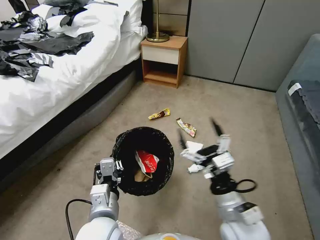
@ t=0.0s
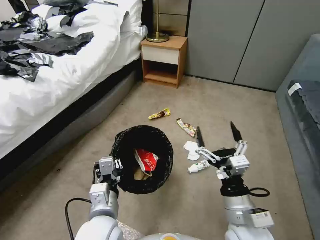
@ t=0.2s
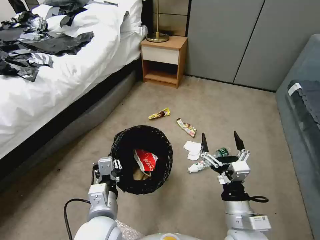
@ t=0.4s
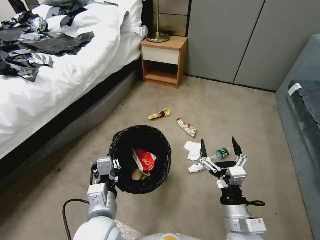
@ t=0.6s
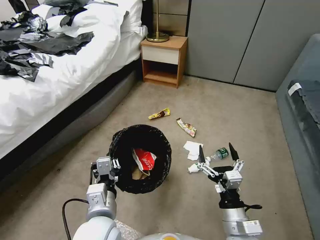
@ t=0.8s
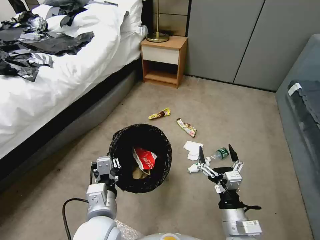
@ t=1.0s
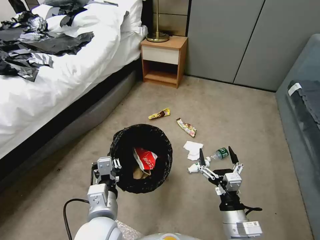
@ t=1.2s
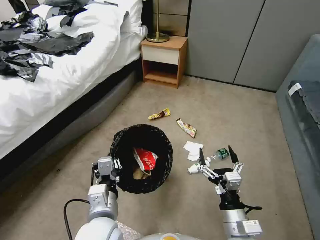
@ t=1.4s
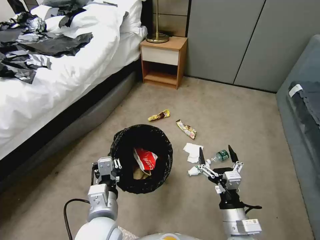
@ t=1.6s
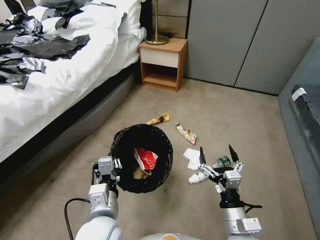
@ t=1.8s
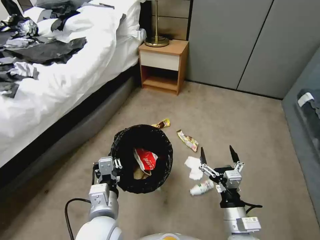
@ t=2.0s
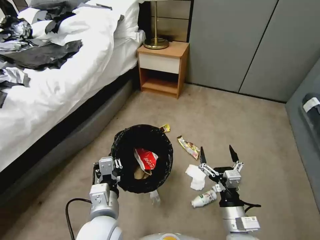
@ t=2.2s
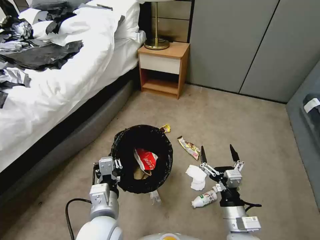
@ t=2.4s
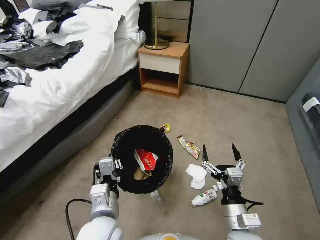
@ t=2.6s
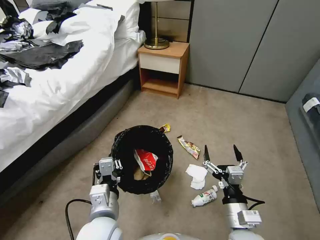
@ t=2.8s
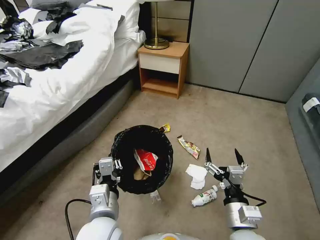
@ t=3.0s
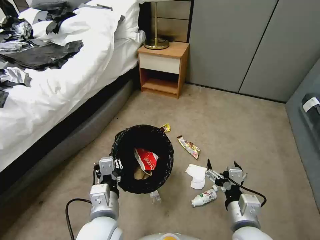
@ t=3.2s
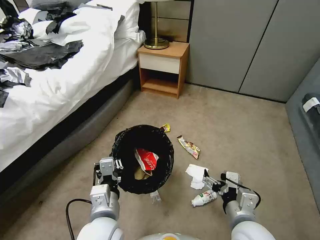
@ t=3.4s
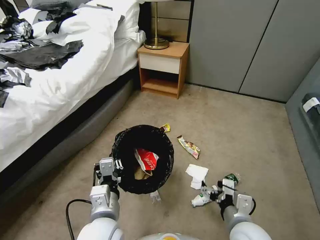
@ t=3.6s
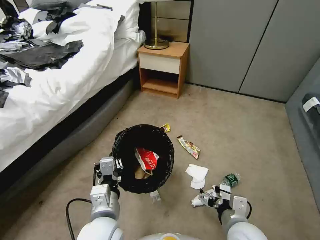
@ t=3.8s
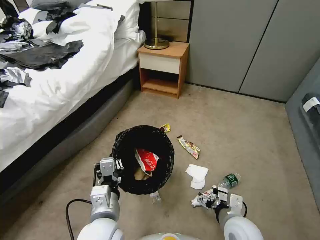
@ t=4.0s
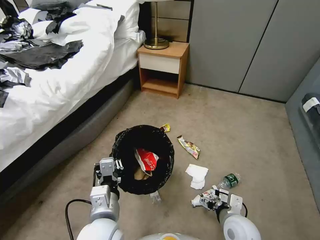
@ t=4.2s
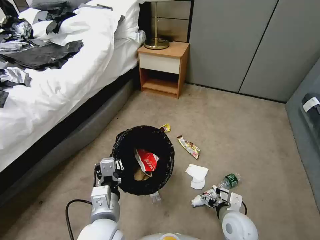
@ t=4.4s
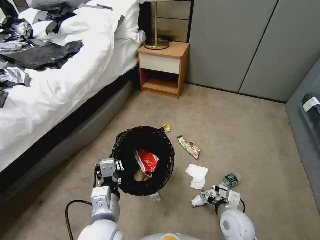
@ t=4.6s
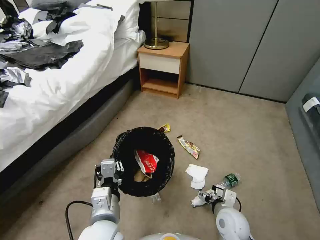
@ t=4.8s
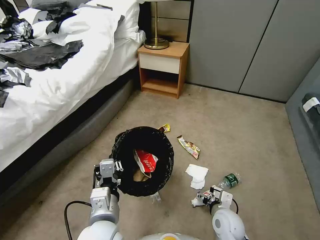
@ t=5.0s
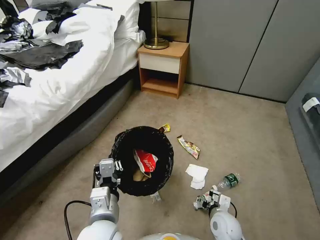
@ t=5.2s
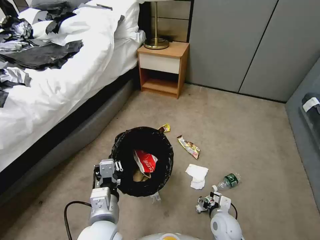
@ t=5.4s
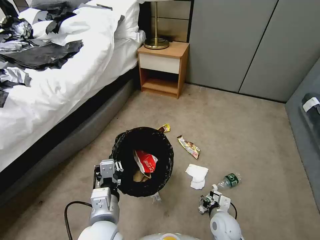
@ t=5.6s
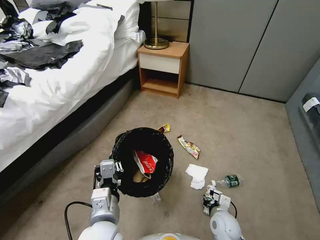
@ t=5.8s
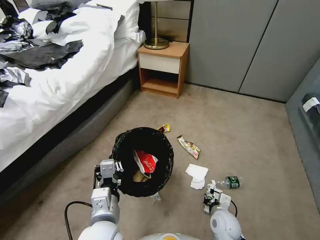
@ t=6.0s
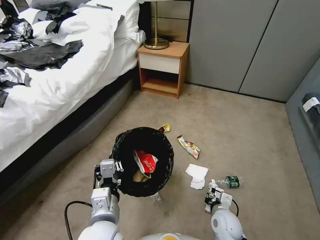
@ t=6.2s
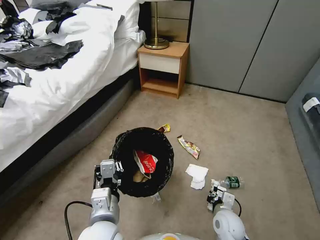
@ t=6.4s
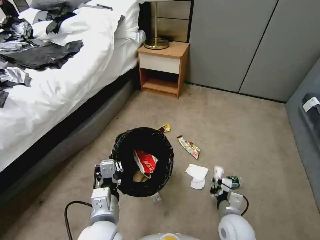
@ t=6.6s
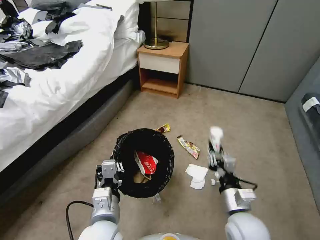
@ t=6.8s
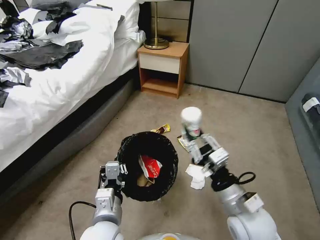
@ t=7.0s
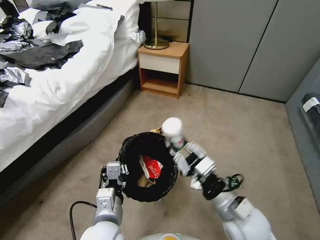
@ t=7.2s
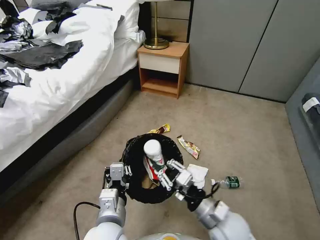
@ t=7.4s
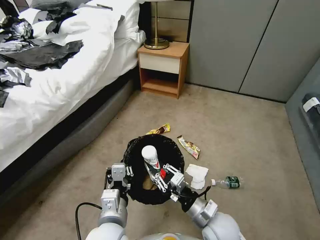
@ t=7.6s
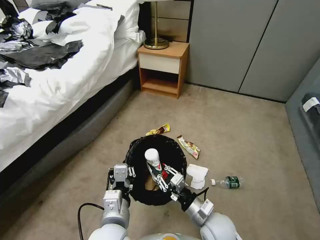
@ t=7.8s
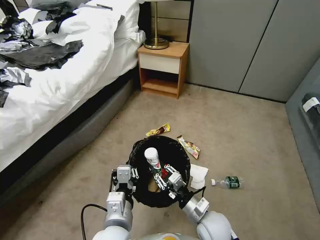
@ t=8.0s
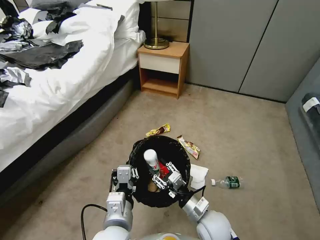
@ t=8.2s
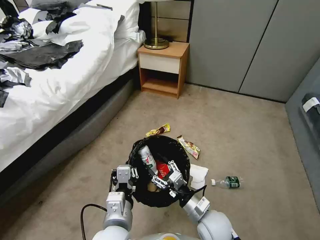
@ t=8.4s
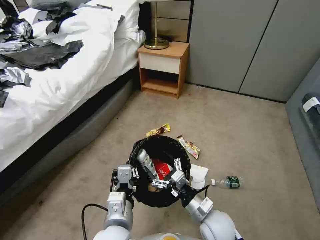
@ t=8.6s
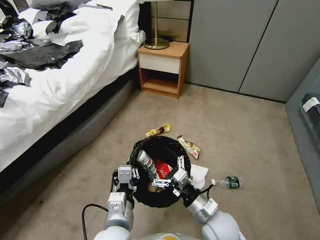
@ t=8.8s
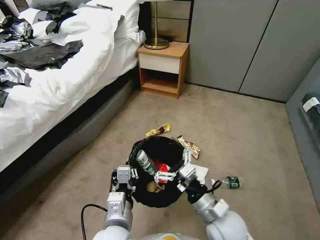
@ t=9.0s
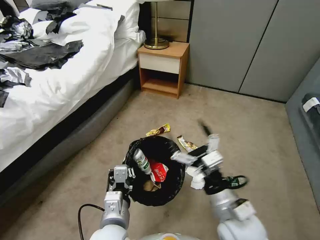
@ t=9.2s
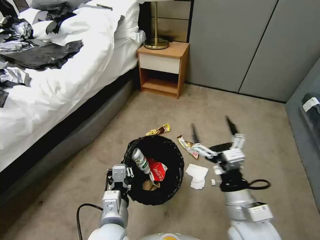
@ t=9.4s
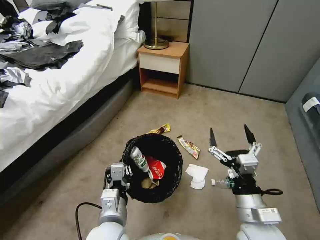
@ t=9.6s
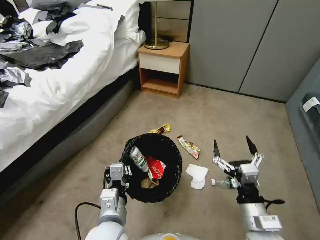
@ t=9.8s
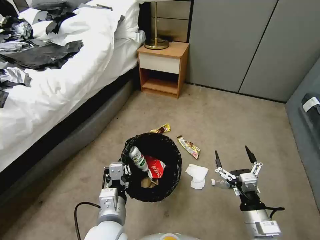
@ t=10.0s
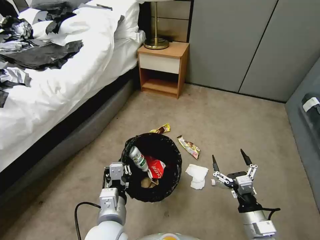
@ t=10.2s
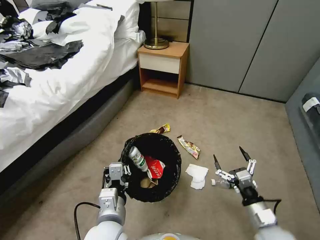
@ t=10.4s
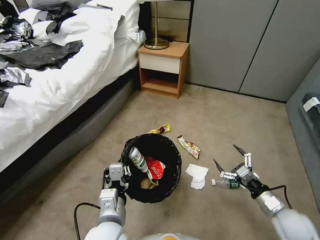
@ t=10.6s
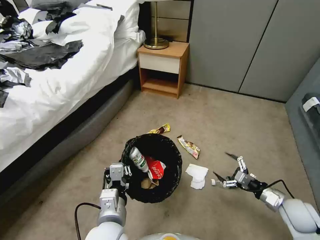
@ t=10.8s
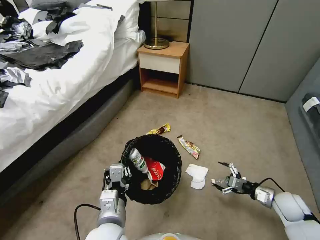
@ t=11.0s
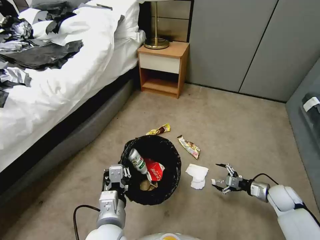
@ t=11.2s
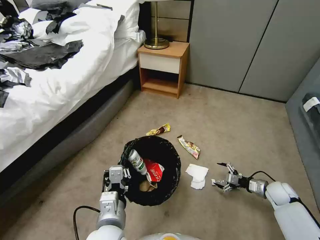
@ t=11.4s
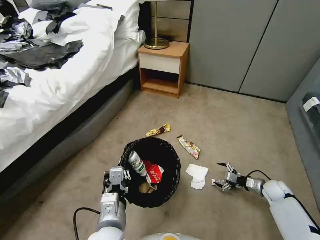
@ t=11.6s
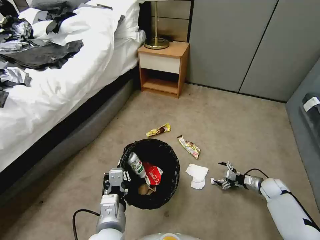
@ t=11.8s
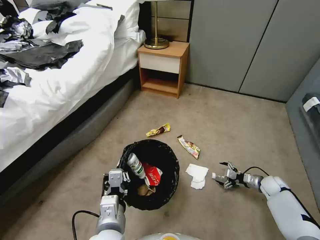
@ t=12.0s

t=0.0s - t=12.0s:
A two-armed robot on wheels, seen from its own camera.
Task of the whole recording: Pick up the trash bin, then pick up the garbage from the floor and place it into the trash bin.
t=0.0s - t=1.6s: The right gripper moves downward, roughly 5 cm.
t=3.0s - t=4.4s: The right gripper shifts some 10 cm downward and forward.
t=4.4s - t=6.0s: The right gripper travels downward by roughly 10 cm, and closes its fingers.
t=6.0s - t=7.6s: The right gripper is displaced upward and to the left by about 15 cm.
t=7.6s - t=9.0s: The right gripper opens.
t=9.0s - t=10.4s: The right gripper shifts roughly 15 cm to the right and downward.
t=10.4s - t=12.0s: The right gripper is displaced forward, to the right and downward by approximately 30 cm.

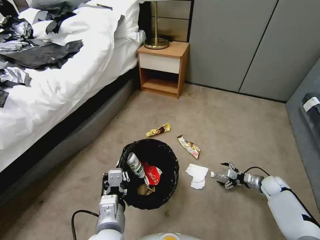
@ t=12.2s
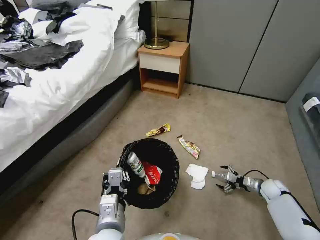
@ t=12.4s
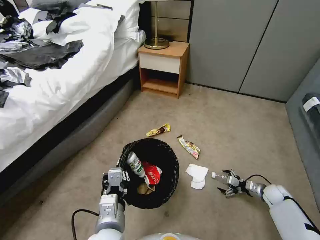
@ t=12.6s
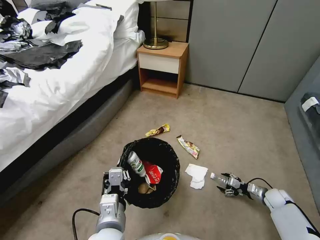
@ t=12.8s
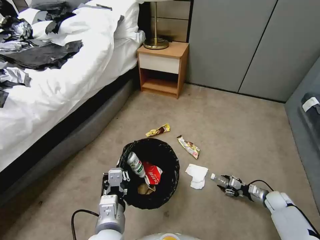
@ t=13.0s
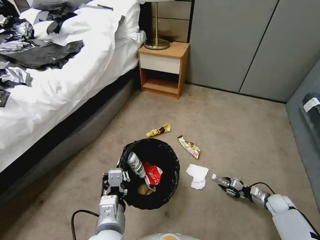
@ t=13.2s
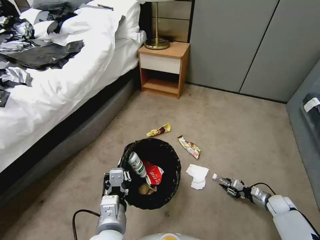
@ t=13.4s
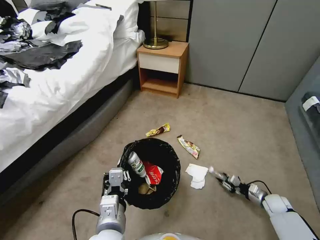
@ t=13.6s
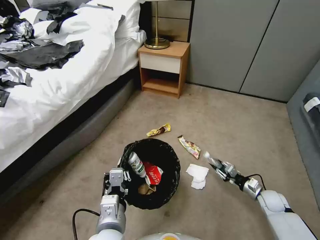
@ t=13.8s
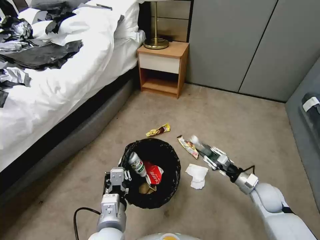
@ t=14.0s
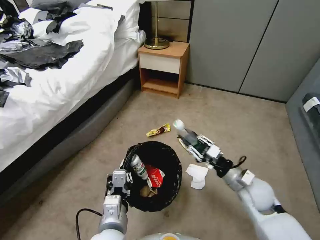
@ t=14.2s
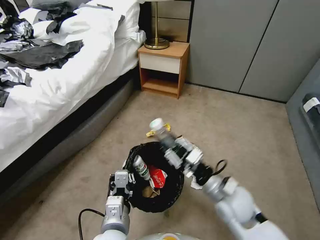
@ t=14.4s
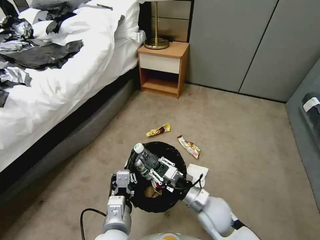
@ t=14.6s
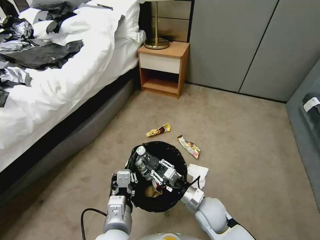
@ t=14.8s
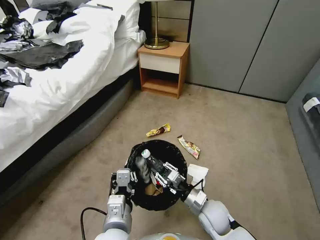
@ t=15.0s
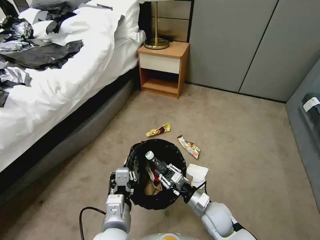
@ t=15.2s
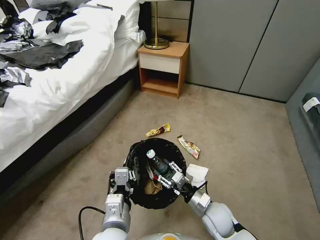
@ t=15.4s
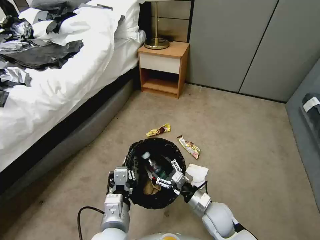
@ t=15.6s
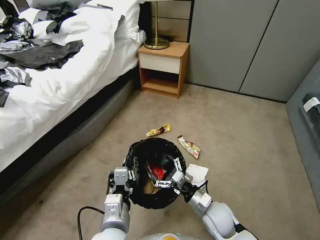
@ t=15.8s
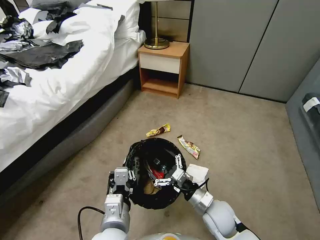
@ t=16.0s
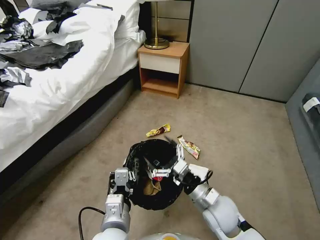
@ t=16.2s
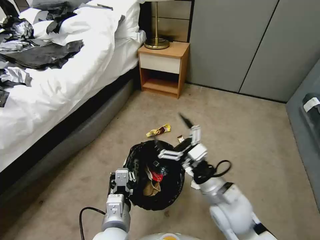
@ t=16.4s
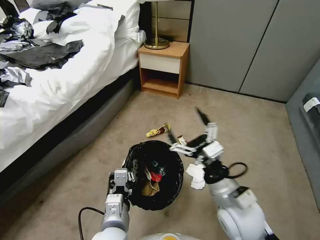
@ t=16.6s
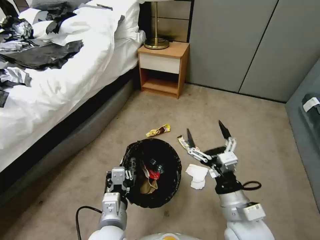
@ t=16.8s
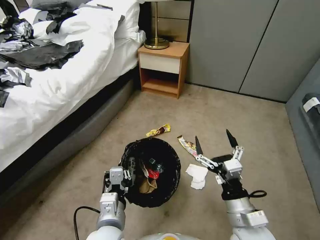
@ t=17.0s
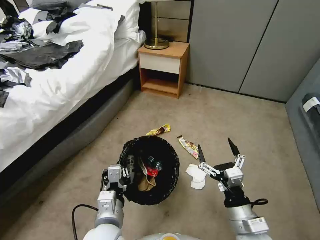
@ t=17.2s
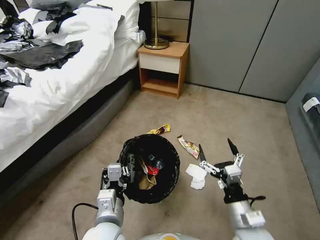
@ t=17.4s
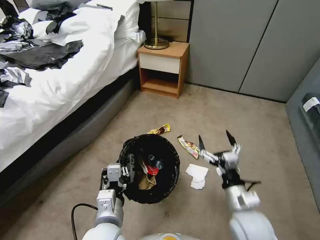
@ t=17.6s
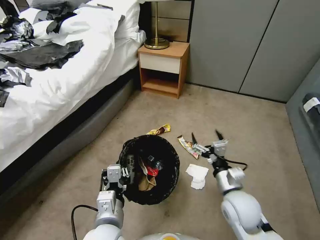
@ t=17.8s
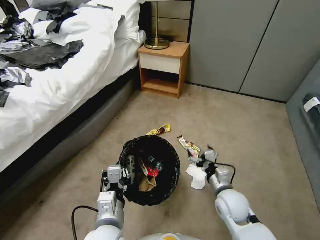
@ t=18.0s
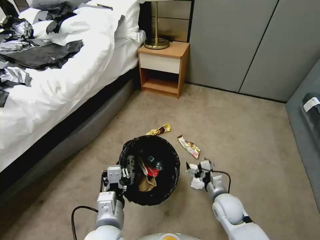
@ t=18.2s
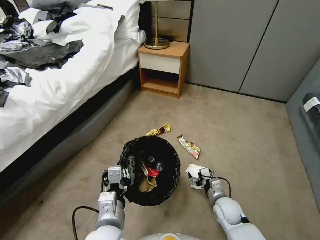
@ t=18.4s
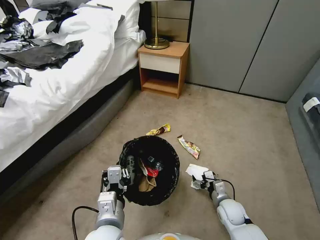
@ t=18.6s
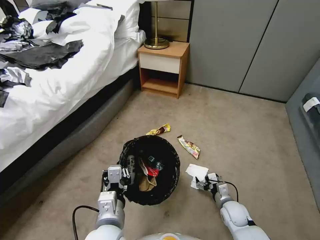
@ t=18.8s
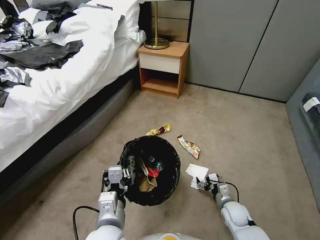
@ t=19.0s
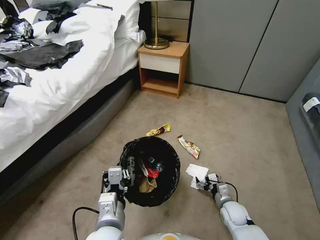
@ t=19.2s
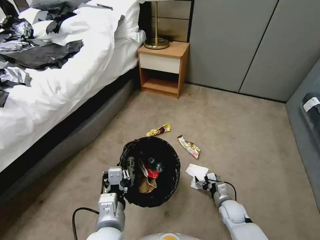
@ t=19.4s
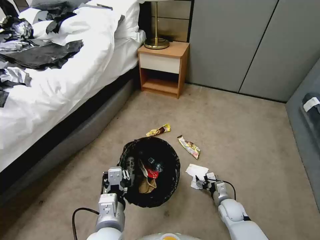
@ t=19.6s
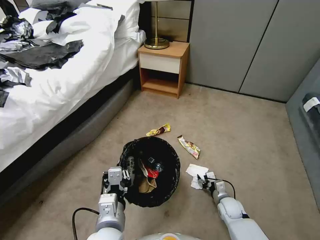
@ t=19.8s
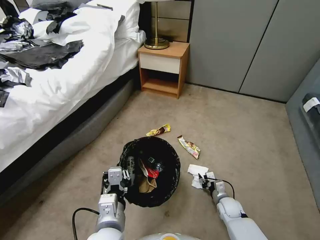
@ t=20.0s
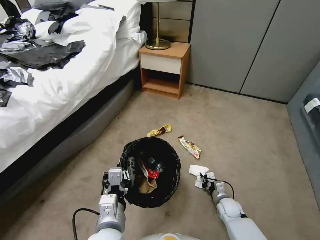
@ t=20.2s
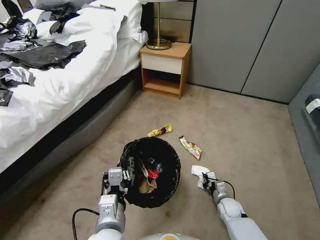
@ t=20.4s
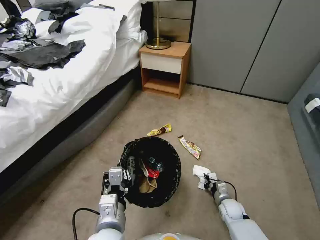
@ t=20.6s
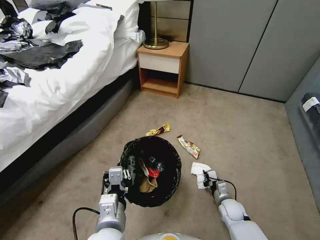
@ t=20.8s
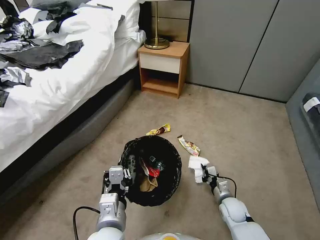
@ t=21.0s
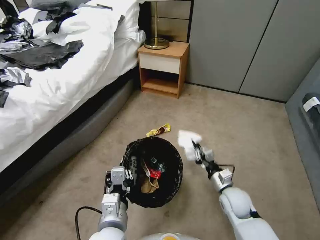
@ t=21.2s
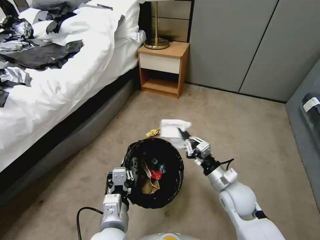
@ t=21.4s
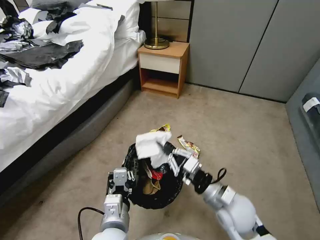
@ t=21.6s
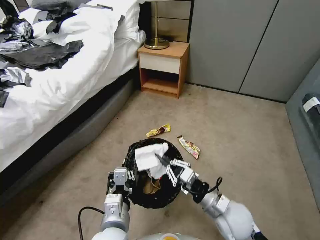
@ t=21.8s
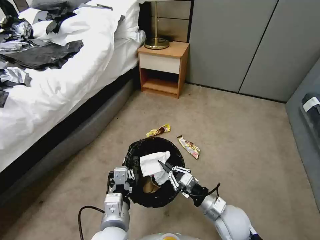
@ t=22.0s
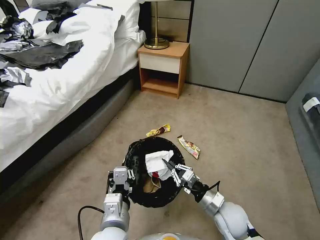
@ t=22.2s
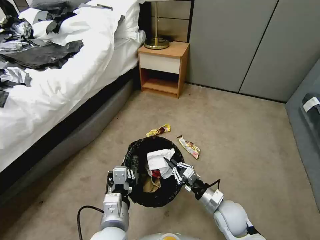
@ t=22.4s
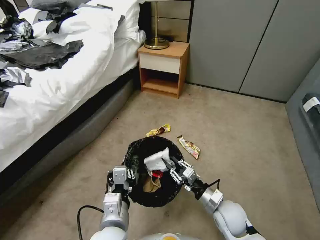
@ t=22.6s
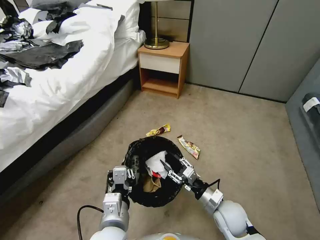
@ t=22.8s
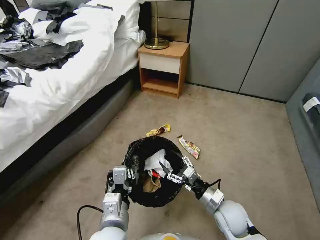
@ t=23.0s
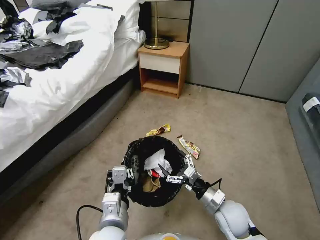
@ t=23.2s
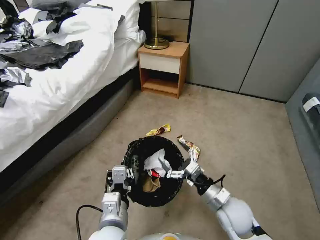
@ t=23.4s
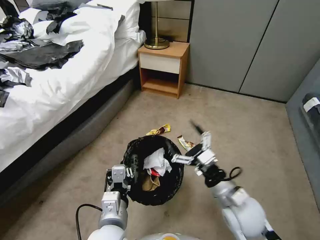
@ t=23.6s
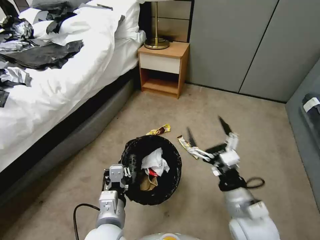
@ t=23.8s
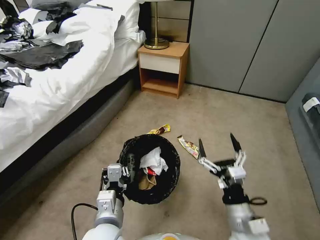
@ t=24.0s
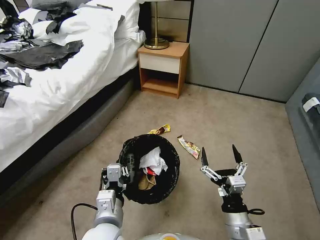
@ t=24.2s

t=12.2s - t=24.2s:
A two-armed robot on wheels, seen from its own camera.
Task of the whole recording: Pick up the trash bin, then pick up the garbage from the floor and place it into the trash bin.
t=12.2s - t=13.8s: The right gripper travels backward by about 5 cm, and closes.
t=13.8s - t=15.2s: The right gripper travels to the left by roughly 25 cm.
t=15.2s - t=16.6s: The right gripper is displaced upward by about 20 cm, and opens its fingers.
t=16.6s - t=18.2s: The right gripper heads downward, covering some 20 cm.
t=18.2s - t=19.8s: The right gripper goes approximately 10 cm downward and to the right, and closes.
t=19.8s - t=21.2s: The right gripper moves upward, approximately 15 cm, and closes up.
t=21.2s - t=22.6s: The right gripper goes upward and returns, about 10 cm each way.
t=22.6s - t=24.2s: The right gripper goes about 10 cm backward and upward, and opens.
